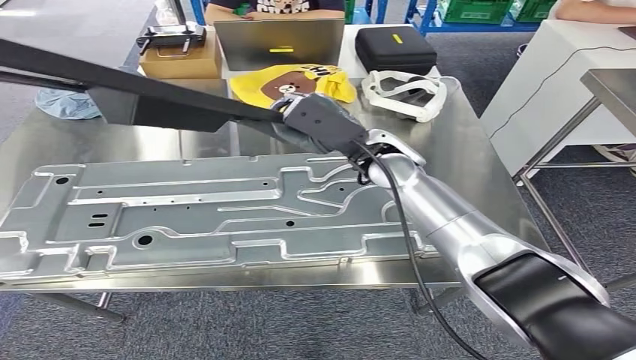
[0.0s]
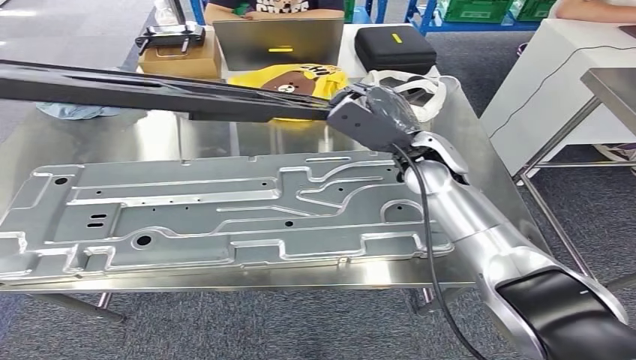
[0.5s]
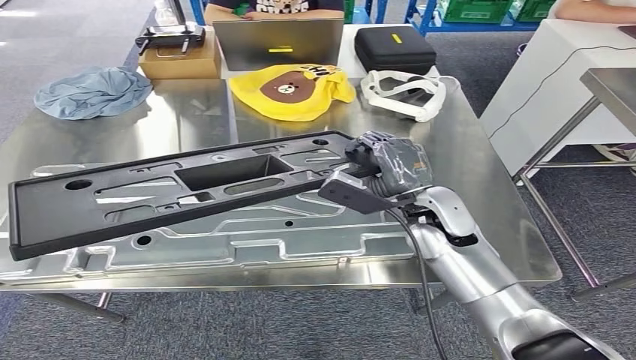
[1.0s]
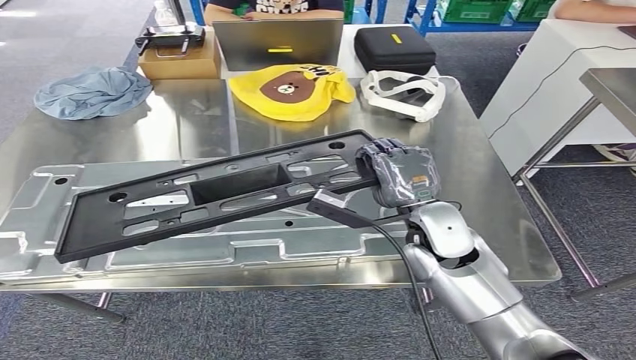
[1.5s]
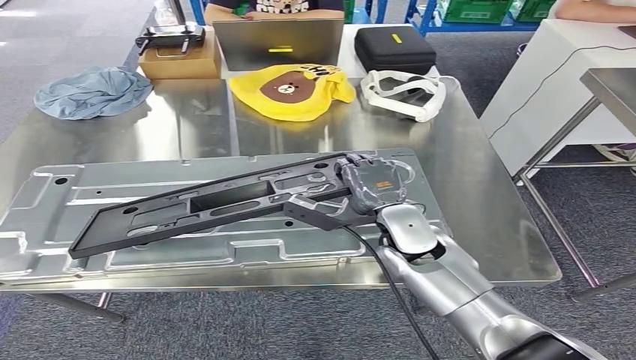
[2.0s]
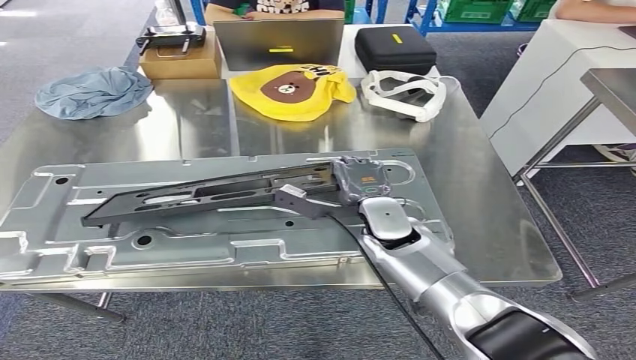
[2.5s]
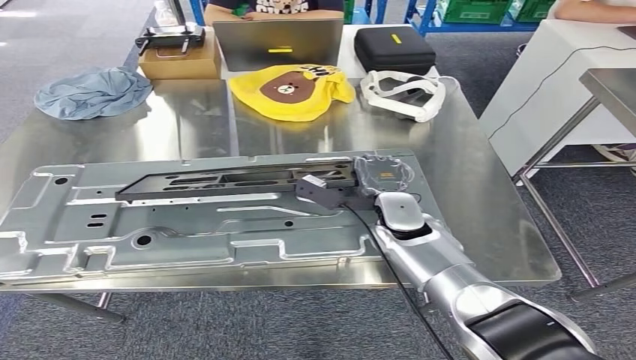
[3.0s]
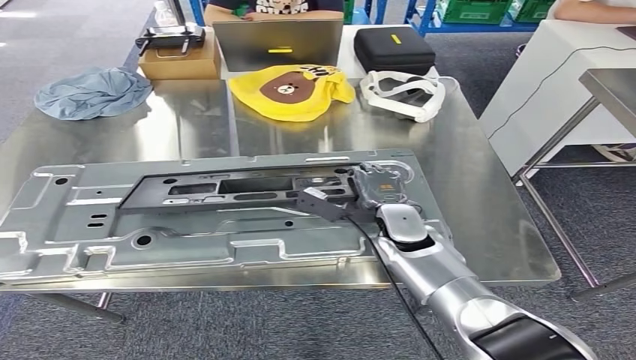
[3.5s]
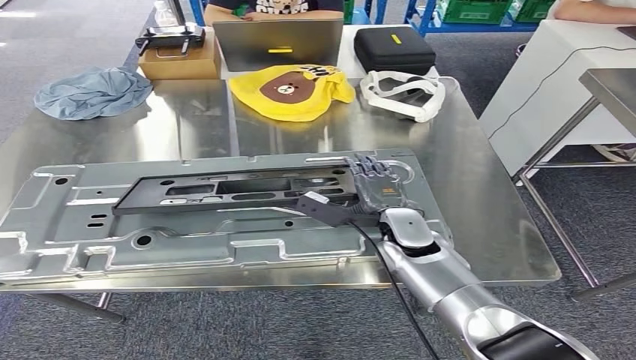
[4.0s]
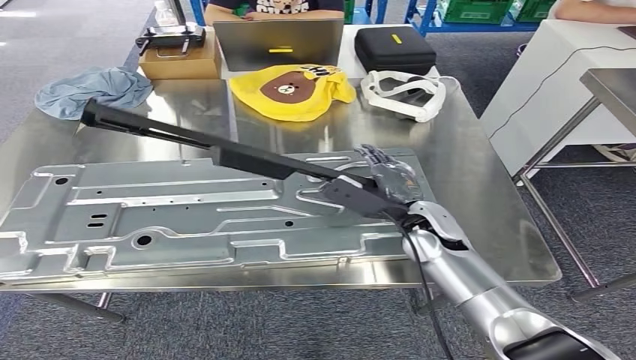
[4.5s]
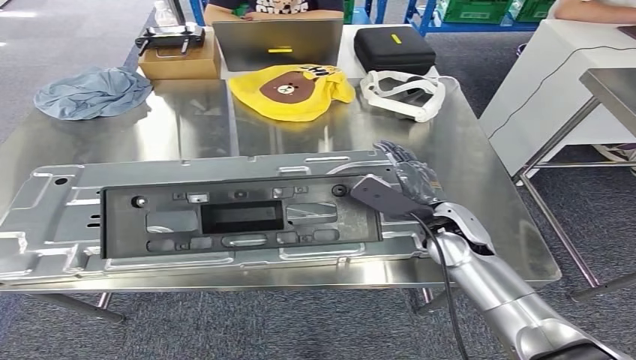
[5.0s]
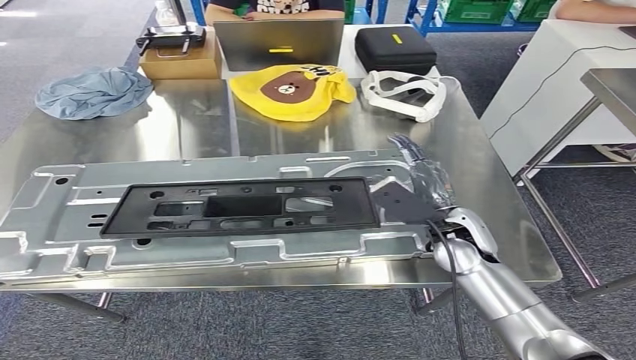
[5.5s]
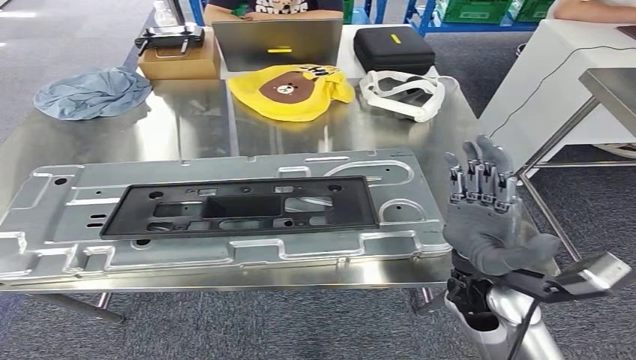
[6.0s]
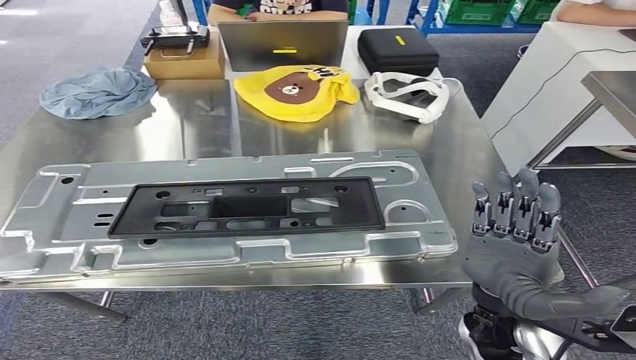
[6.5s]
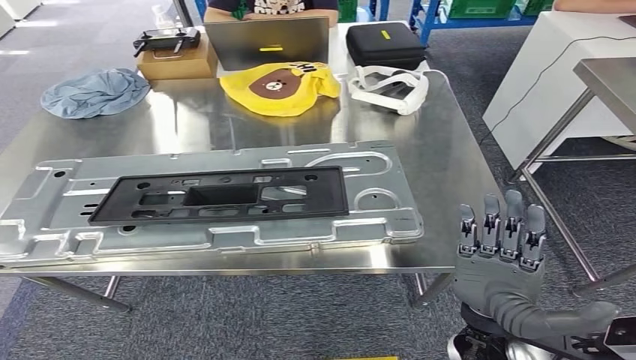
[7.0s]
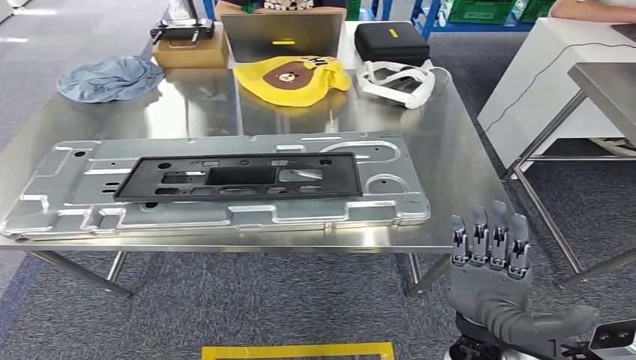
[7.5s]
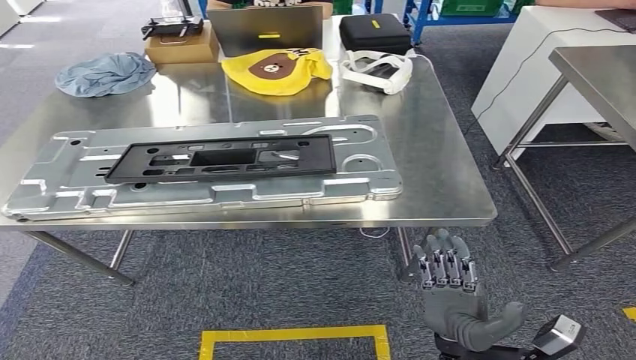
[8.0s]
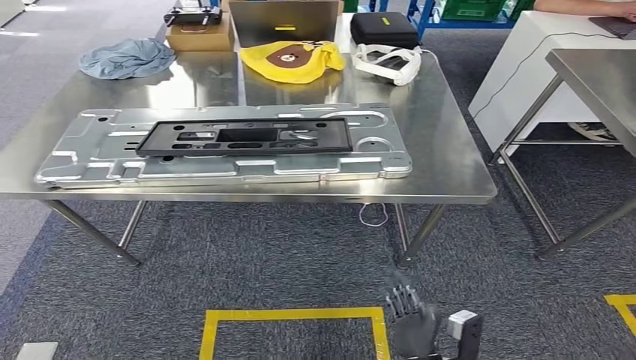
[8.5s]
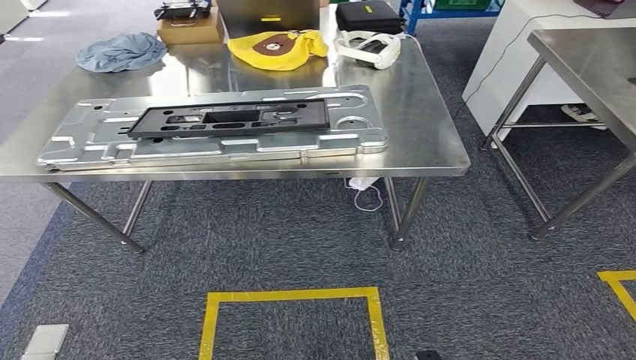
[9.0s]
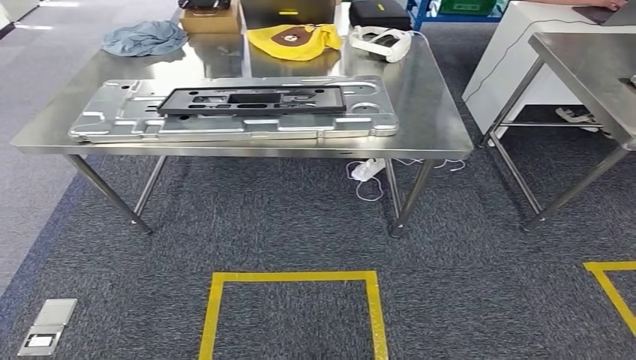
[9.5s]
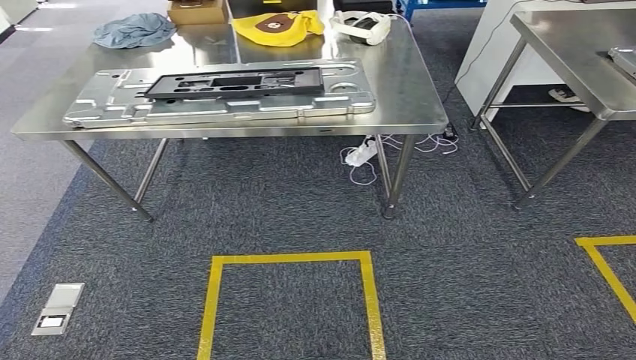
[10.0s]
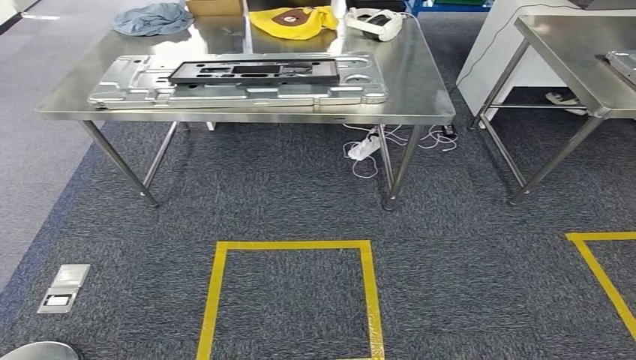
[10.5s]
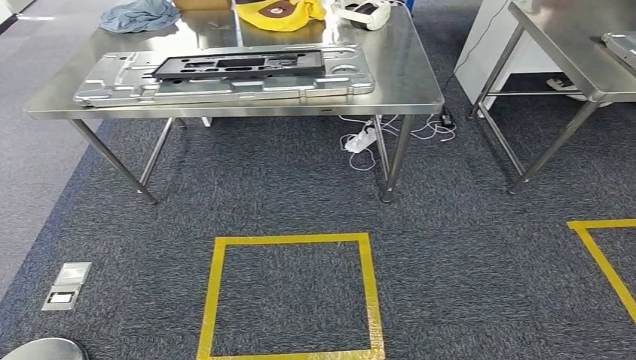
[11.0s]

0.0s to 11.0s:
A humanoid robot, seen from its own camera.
Step, 0.0s to 6.0s: Insert the large material into the corresponding slot on the workbench.
Step, 7.0s to 11.0s: Move to the initial position of the shelf.
2.0s to 3.5s: The right hand ends up roughly 5 cm from where it was.
3.5s to 5.5s: The right hand shifts approximately 10 cm to the right.
